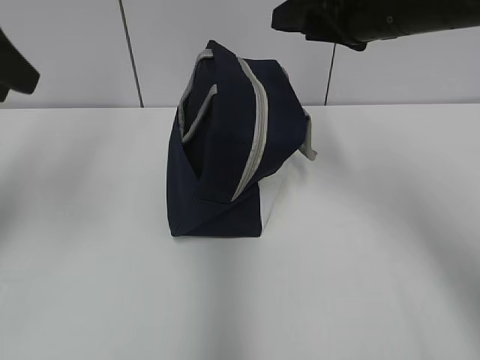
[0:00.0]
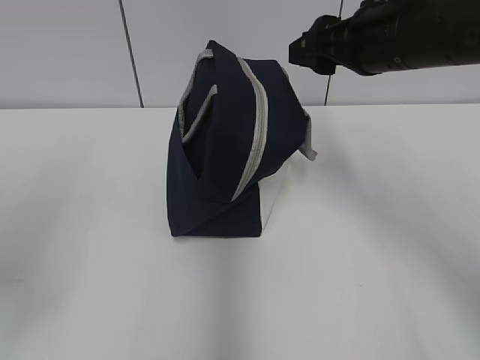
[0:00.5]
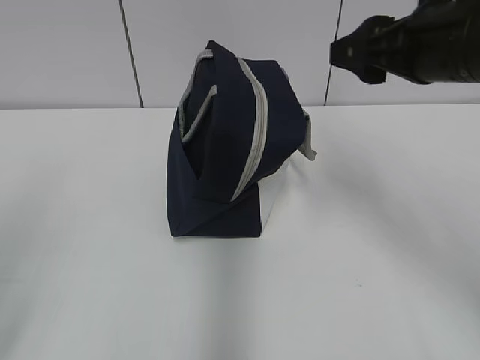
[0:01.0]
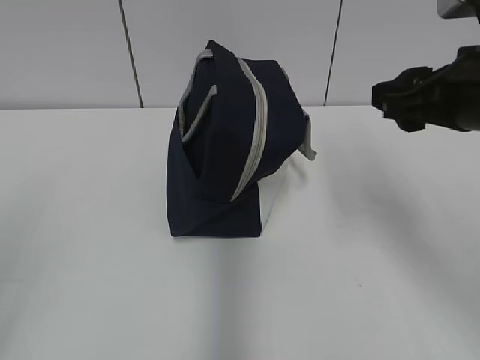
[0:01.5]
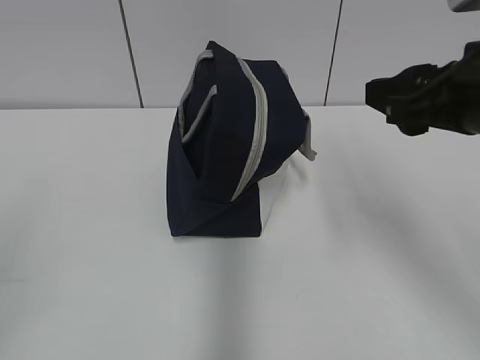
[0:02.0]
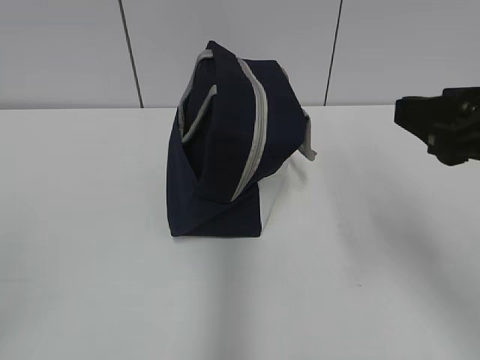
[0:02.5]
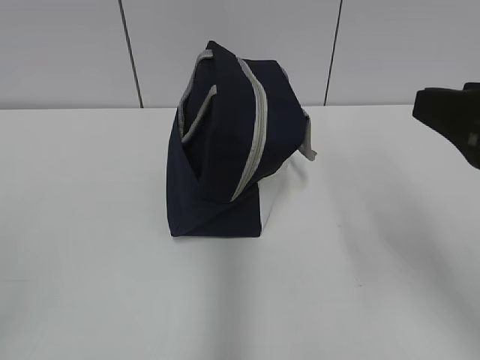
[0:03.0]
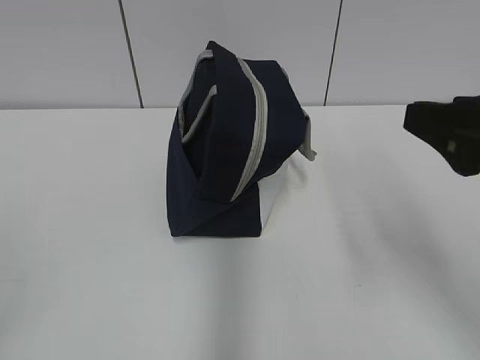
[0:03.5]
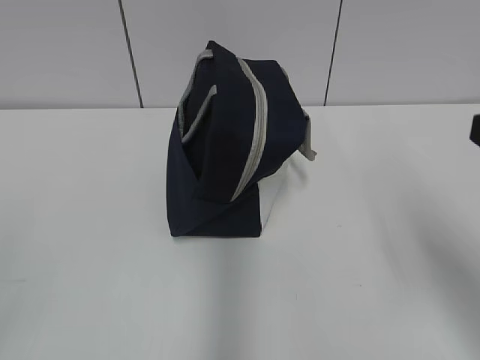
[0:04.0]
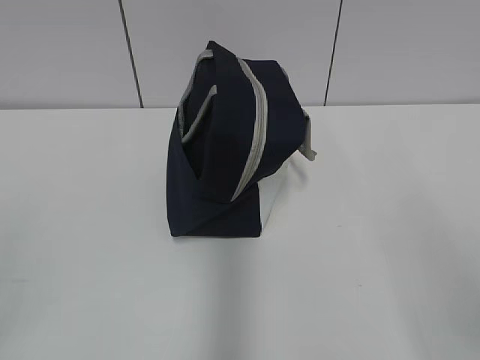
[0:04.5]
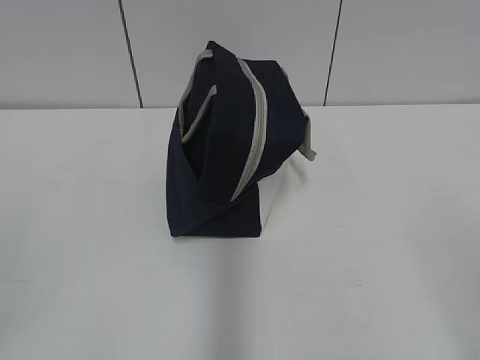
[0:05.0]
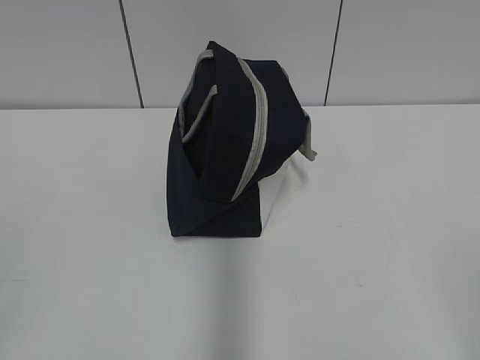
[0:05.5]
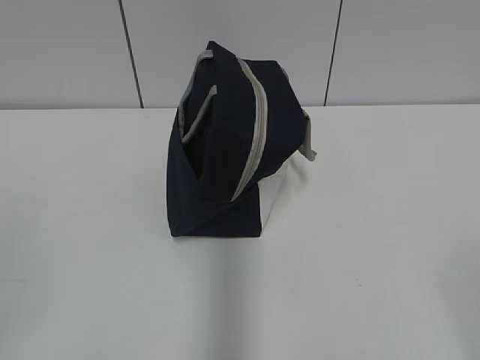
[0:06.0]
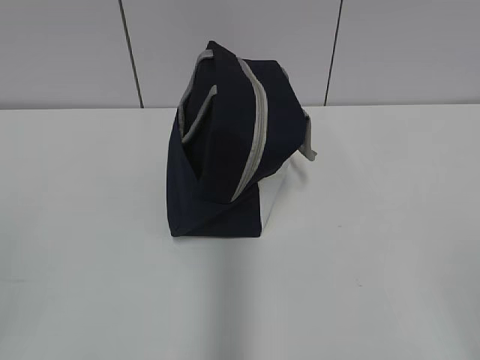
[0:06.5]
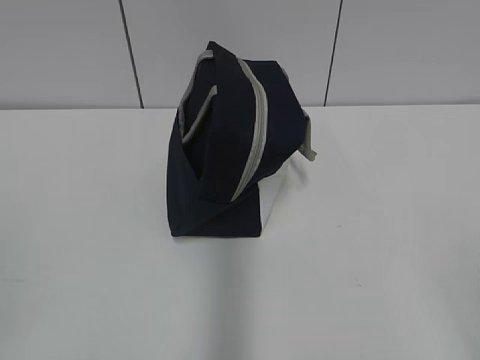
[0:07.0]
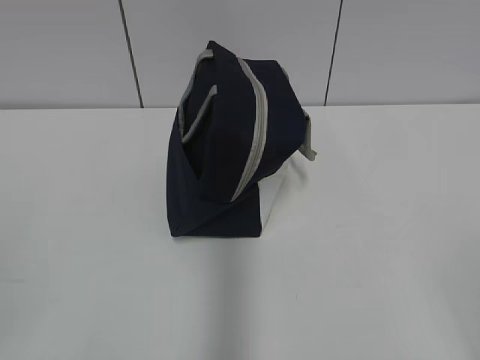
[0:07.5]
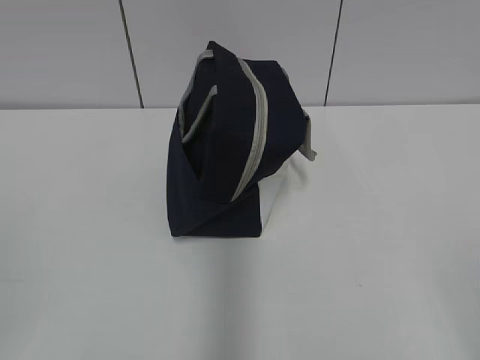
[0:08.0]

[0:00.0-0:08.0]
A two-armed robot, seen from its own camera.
0:00.0 to 0:02.0: The right gripper heads backward, covering about 15 cm, while the left gripper shifts approximately 25 cm backward.
0:02.0 to 0:04.0: The right gripper is displaced backward by approximately 10 cm.
0:04.0 to 0:06.0: The right gripper is displaced backward by some 15 cm.
